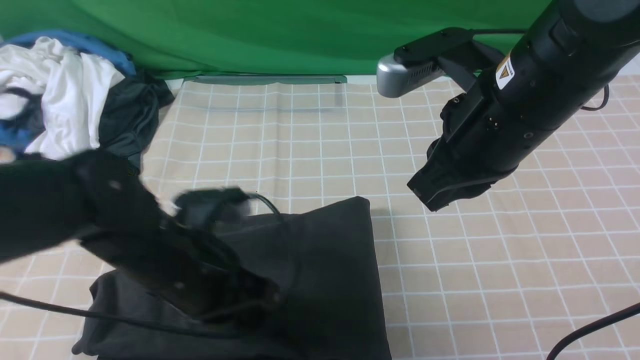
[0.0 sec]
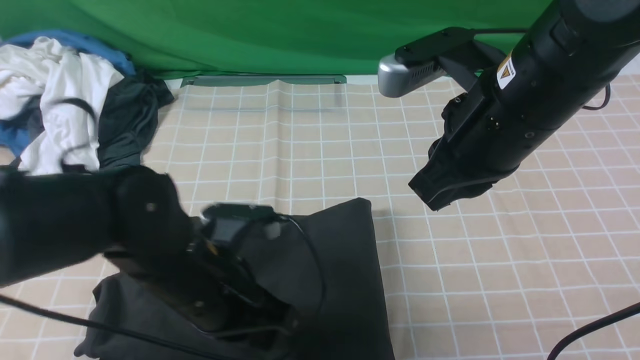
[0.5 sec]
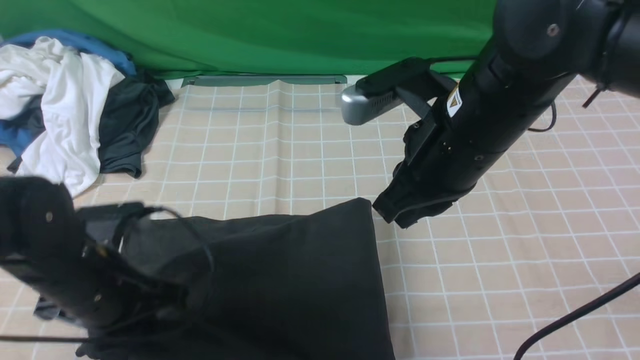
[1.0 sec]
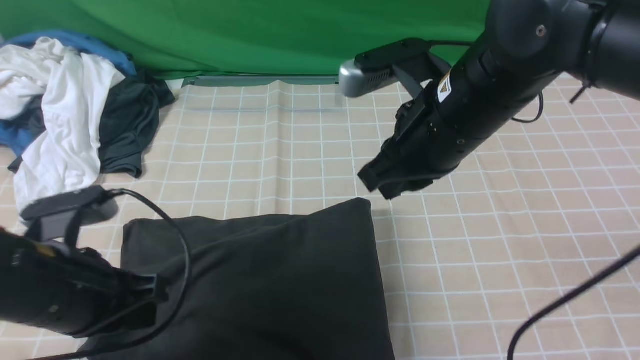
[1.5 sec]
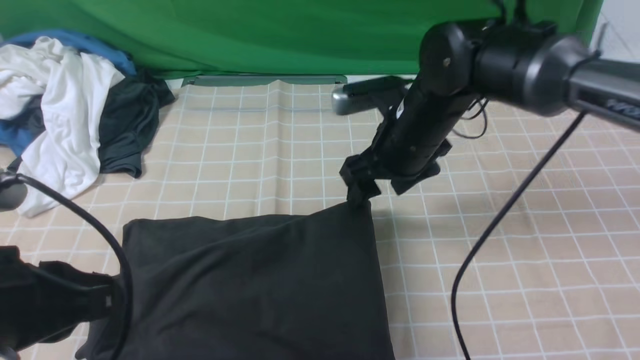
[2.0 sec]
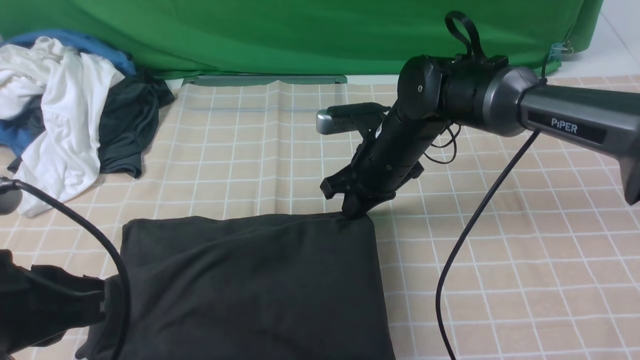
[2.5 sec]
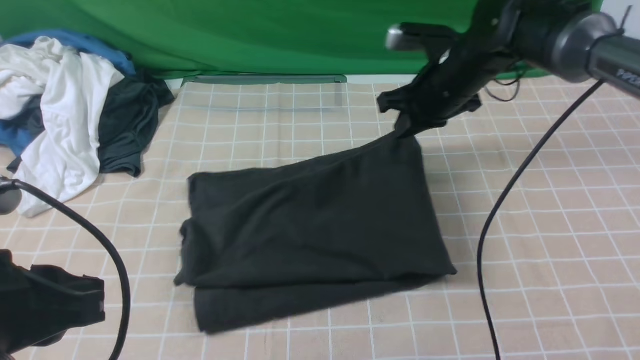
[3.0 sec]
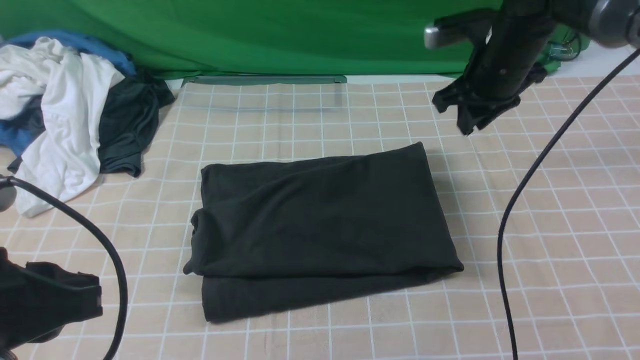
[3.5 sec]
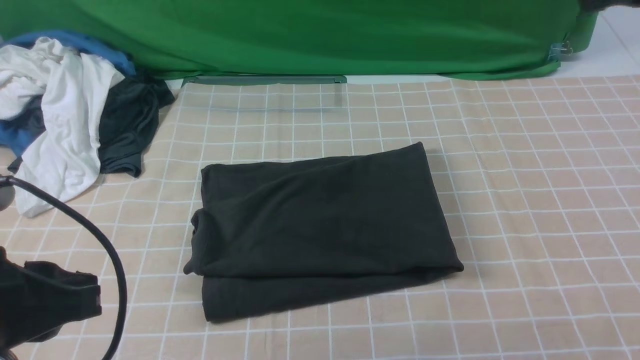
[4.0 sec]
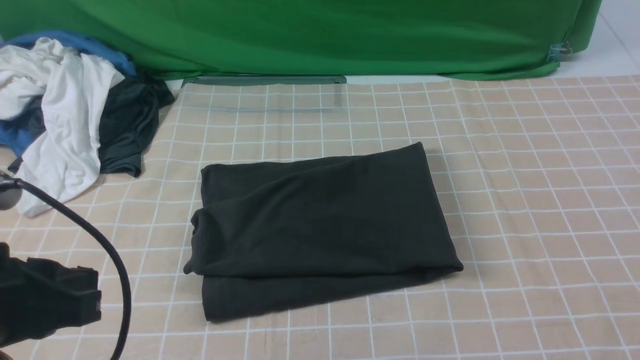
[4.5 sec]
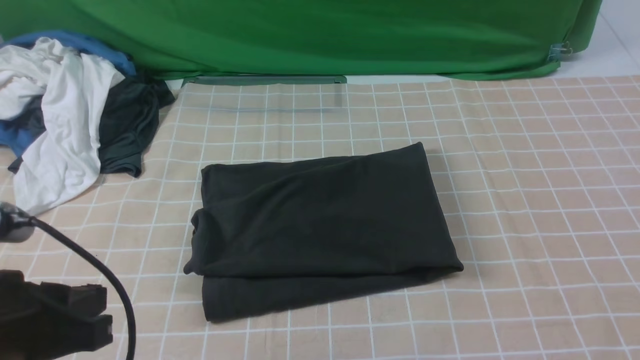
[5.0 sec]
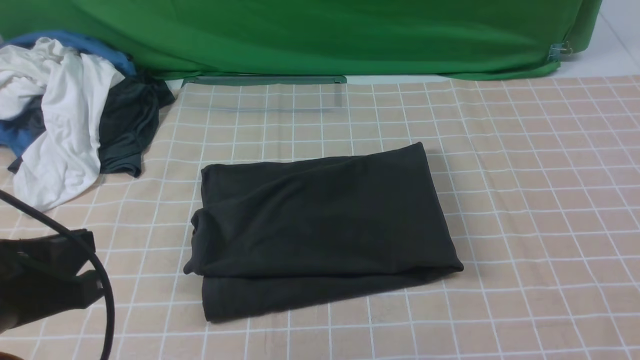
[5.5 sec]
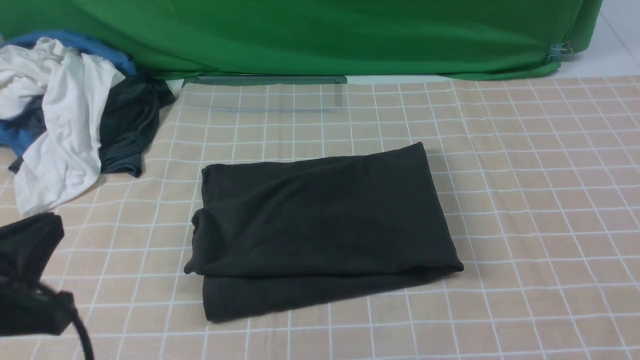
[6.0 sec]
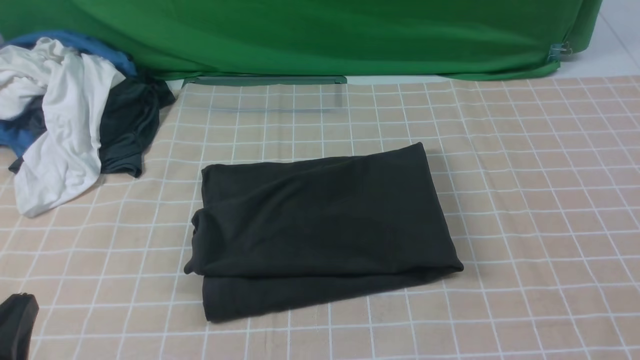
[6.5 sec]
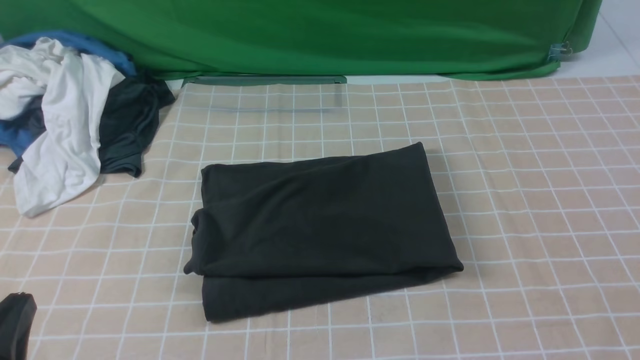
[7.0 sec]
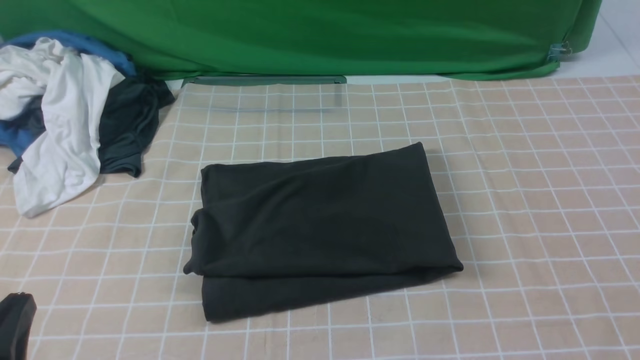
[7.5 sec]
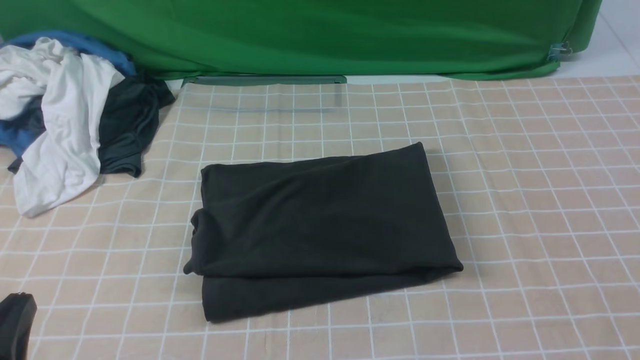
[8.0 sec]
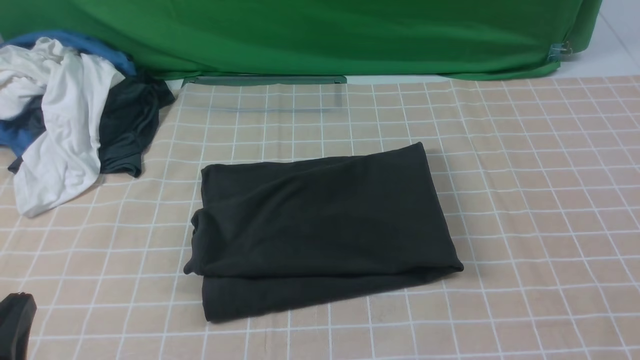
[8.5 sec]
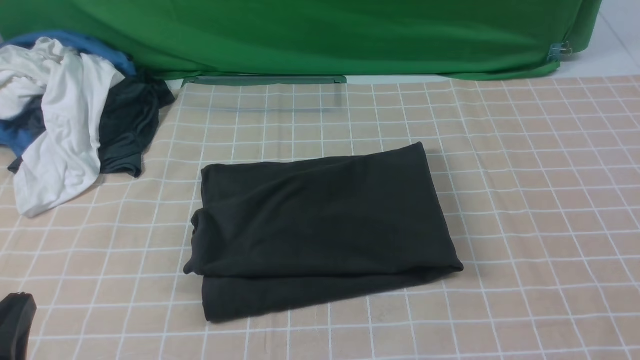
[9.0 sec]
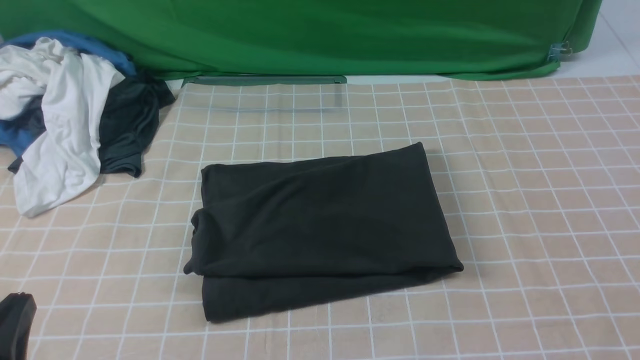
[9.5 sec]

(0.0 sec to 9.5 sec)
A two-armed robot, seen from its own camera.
0.0 sec - 2.0 sec: The right gripper is displaced downward and forward by roughly 15 cm, and opens its fingers; the left gripper moves backward, upward and to the left, roughly 15 cm.
2.0 sec - 4.0 sec: The right gripper moves upward, to the right and backward, approximately 30 cm, and closes.
5.5 sec - 7.5 sec: The left gripper heads downward and backward, covering roughly 10 cm.

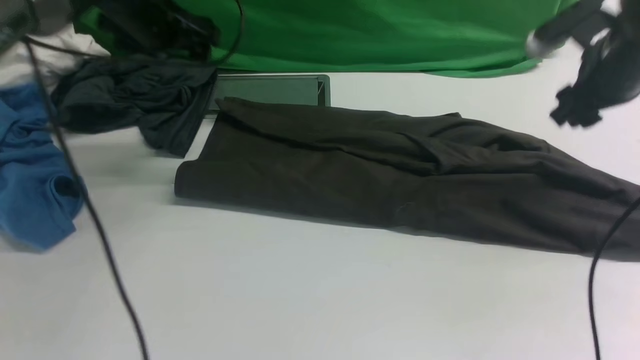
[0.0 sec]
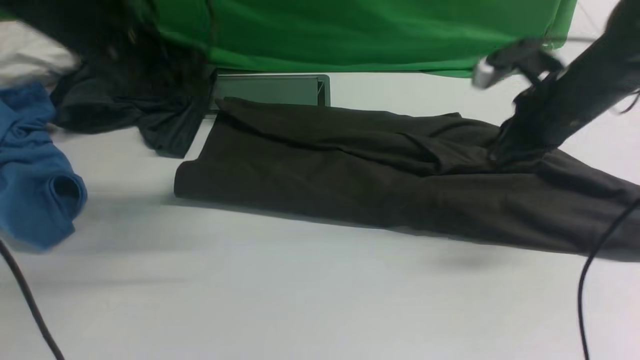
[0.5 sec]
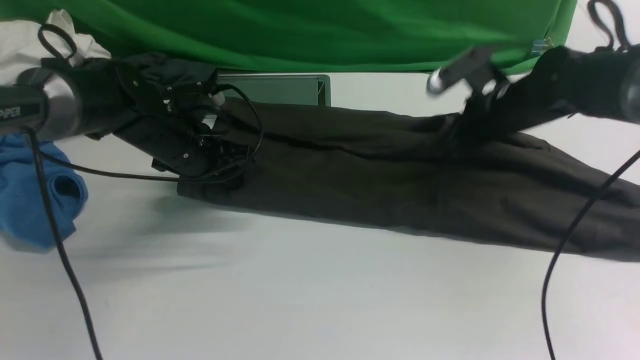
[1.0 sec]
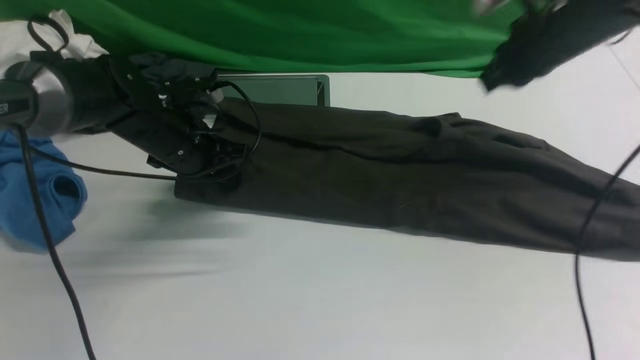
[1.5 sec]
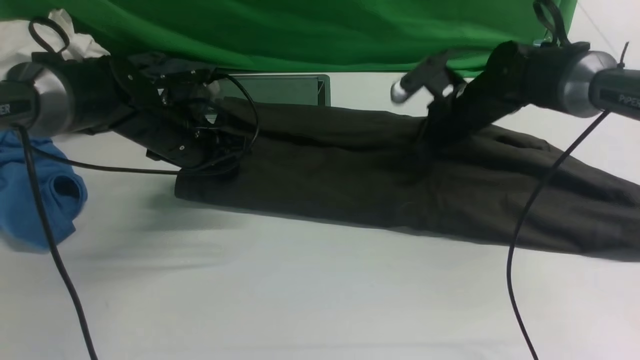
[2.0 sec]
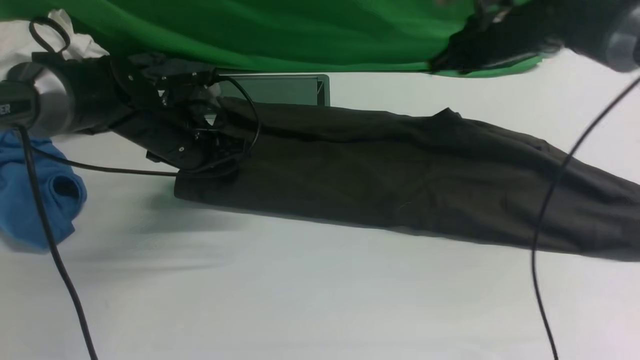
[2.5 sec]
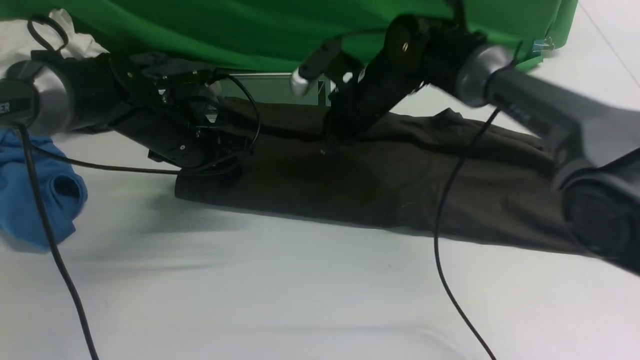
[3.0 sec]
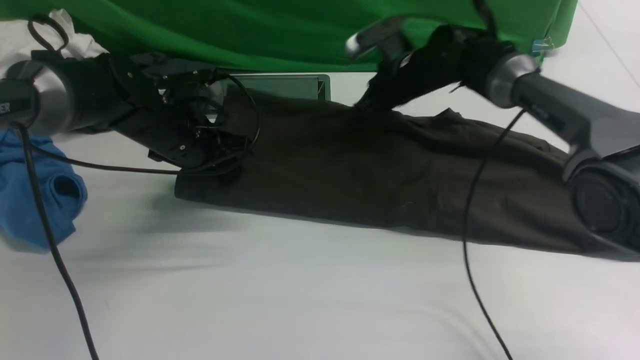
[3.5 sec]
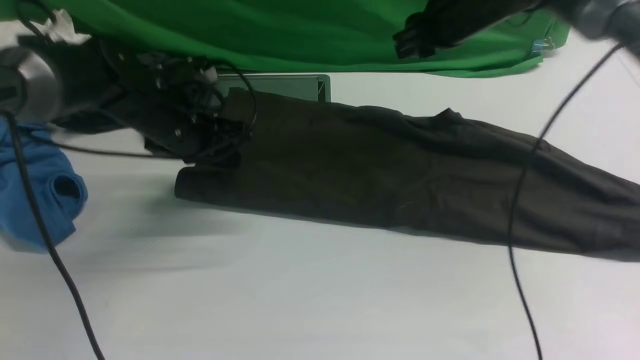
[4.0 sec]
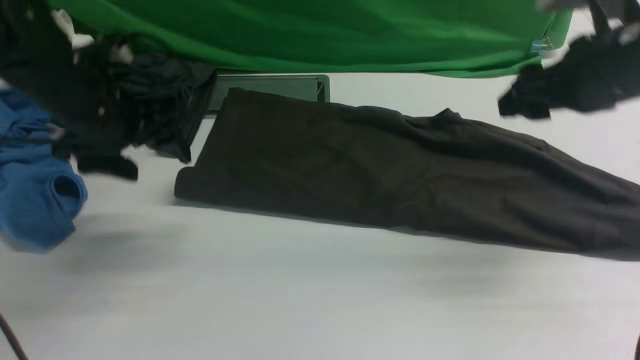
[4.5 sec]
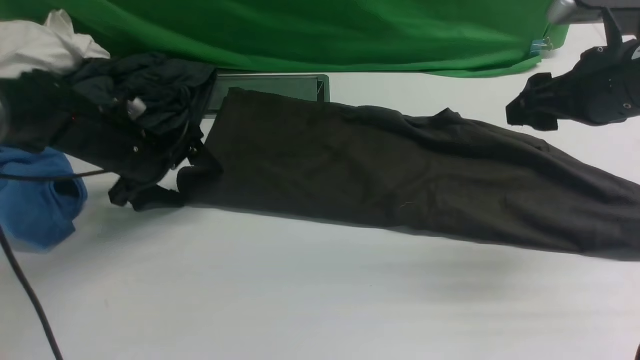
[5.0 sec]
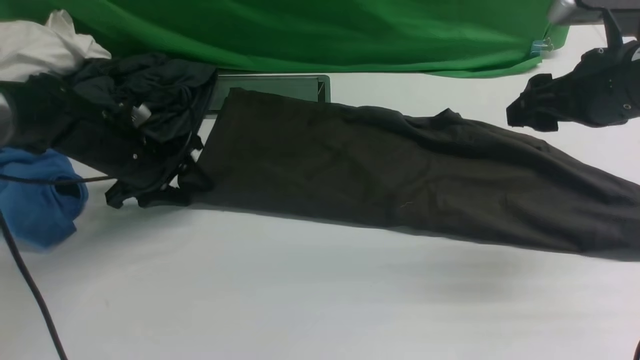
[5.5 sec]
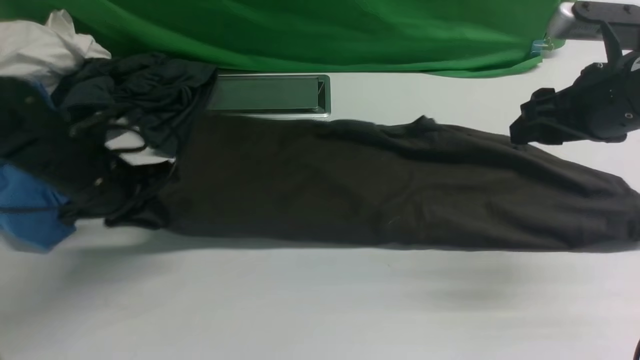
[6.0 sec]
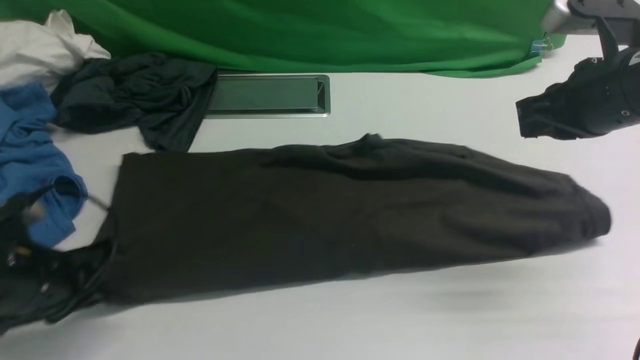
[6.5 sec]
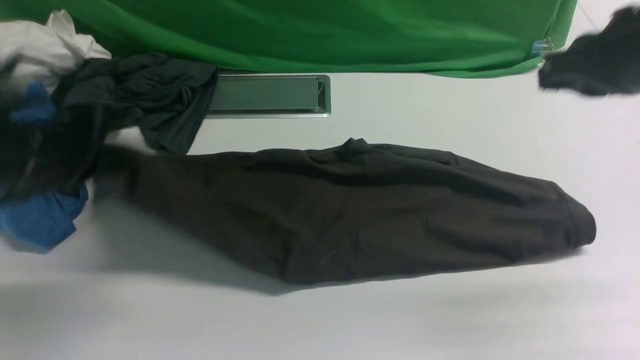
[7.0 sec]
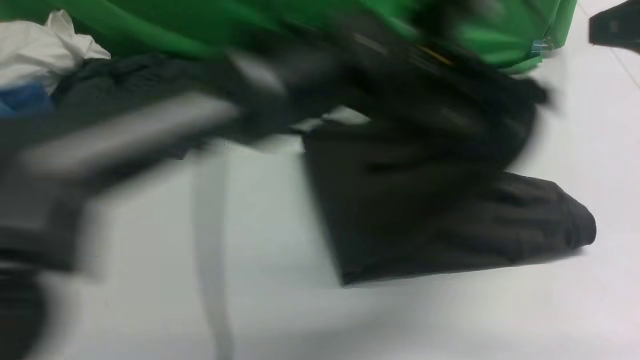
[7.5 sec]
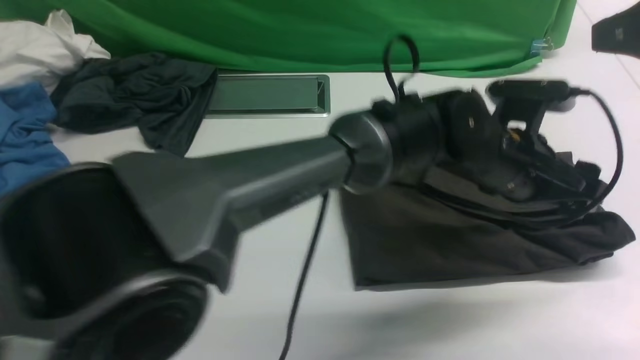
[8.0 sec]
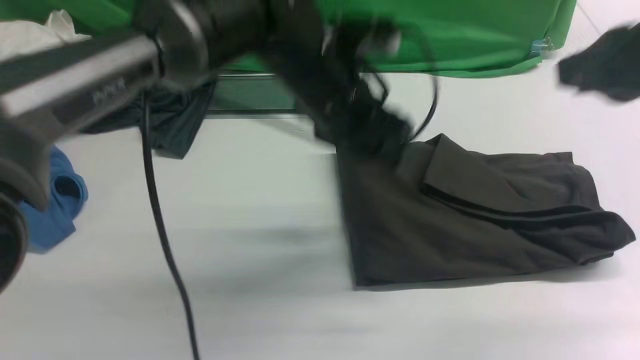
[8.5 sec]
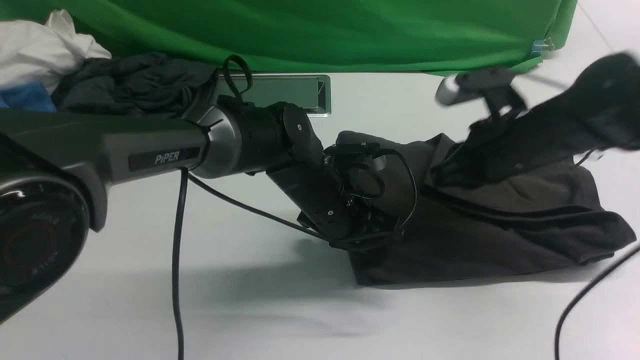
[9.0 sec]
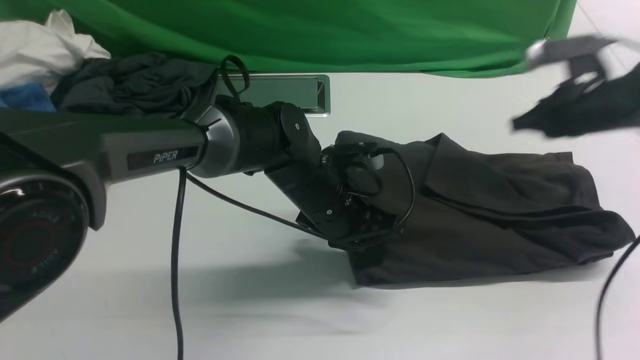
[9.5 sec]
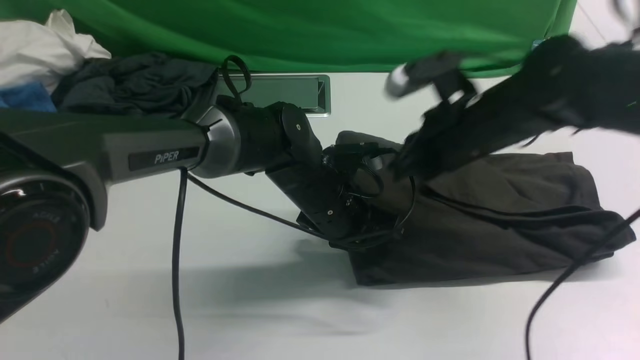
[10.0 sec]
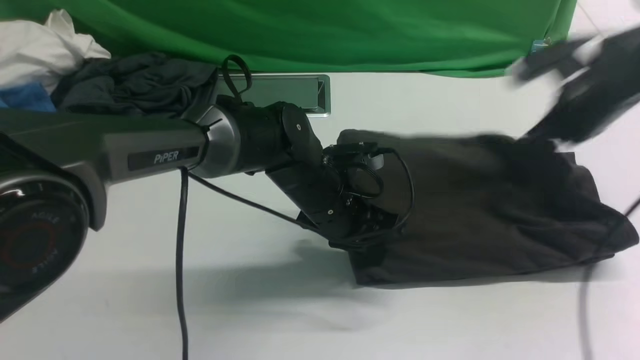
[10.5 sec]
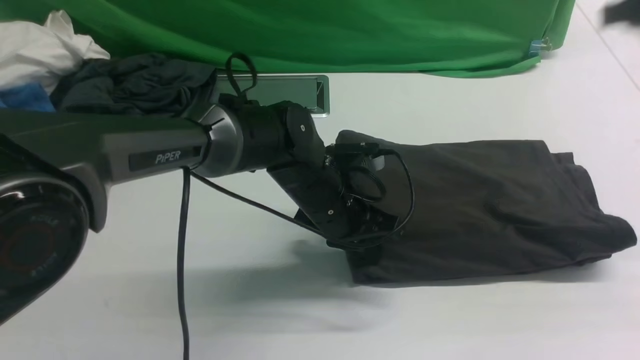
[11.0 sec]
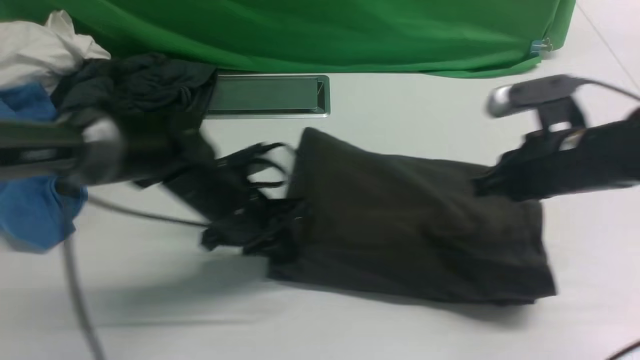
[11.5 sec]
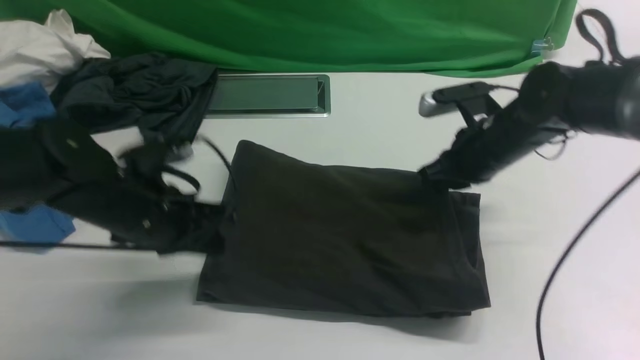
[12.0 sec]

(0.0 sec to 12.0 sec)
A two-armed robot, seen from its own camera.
Step, 0.0 sec - 4.0 sec: use both arms to drag the lower edge of the fabric forward and fold it over the upper edge.
Step, 4.5 sec - 6.5 sec: Hold the left edge of the fabric with your left arm.
Step, 7.0 sec - 8.0 sec: Drag the left edge of the fabric to the left with your left arm and fold it to the right edge.
0.0 sec - 2.0 sec: The right gripper goes up and down, about 10 cm each way, reversing 2 times, and closes its fingers; the left gripper travels downward and backward by about 15 cm, and closes.
2.0 sec - 4.0 sec: The right gripper travels upward by roughly 10 cm, moves about 10 cm to the left and comes back, and opens its fingers.
4.0 sec - 6.0 sec: The left gripper is displaced backward and to the left by approximately 10 cm, reaches about 5 cm downward, then returns, and opens and closes again, while the right gripper goes some 20 cm backward and to the right, and opens and closes again.
6.0 sec - 8.0 sec: The right gripper shifts roughly 15 cm upward and backward, and closes up. The left gripper moves to the right, approximately 40 cm, and opens.
8.0 sec - 10.0 sec: The left gripper moves to the left and downward, some 20 cm, and closes up, while the right gripper shifts approximately 25 cm downward, forward and to the left.
10.0 sec - 12.0 sec: The right gripper moves about 15 cm to the right and comes back; the left gripper moves to the left and upward, roughly 20 cm.
